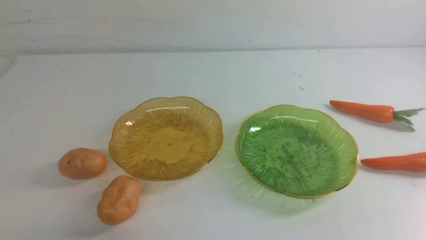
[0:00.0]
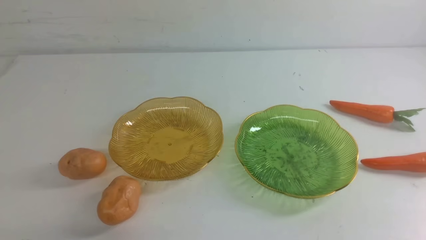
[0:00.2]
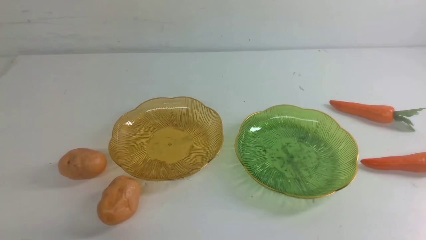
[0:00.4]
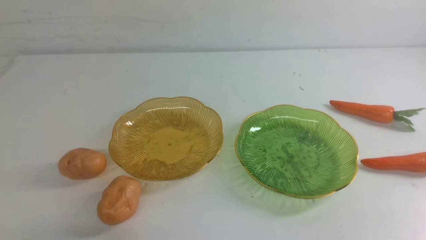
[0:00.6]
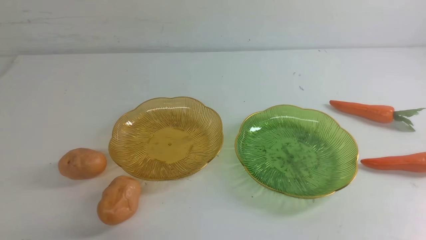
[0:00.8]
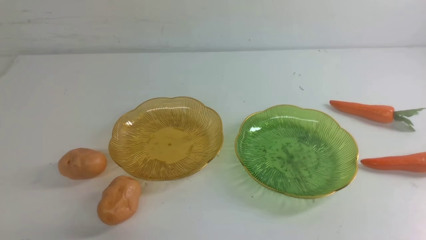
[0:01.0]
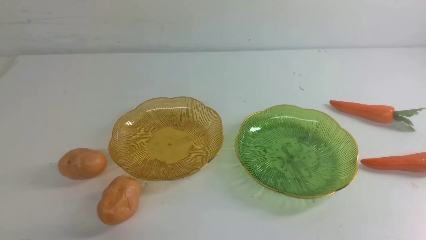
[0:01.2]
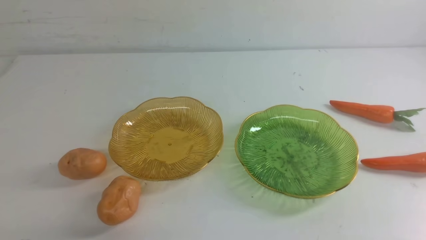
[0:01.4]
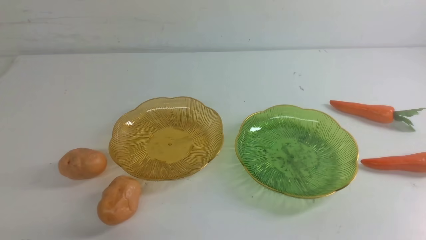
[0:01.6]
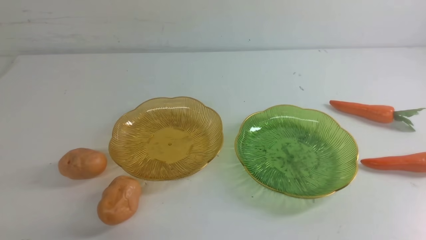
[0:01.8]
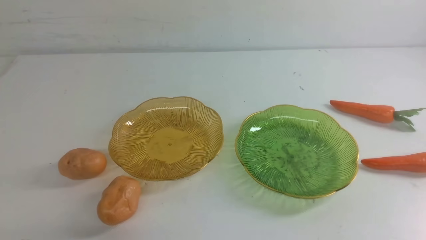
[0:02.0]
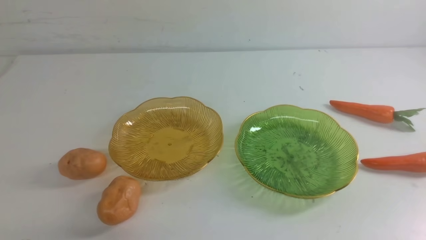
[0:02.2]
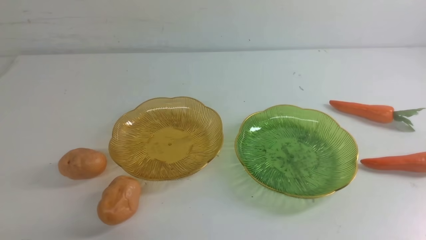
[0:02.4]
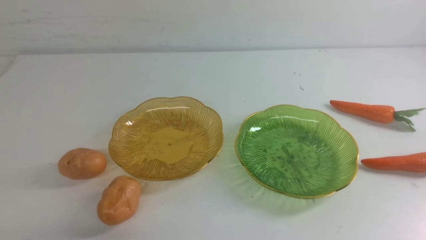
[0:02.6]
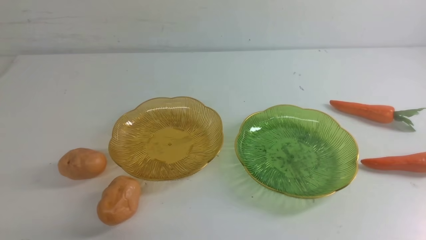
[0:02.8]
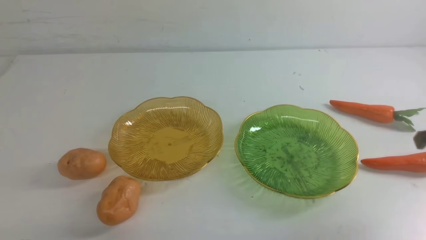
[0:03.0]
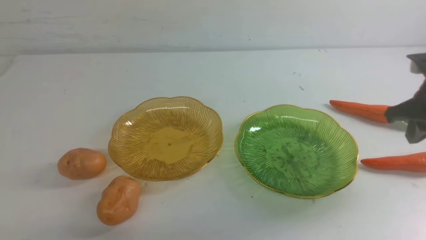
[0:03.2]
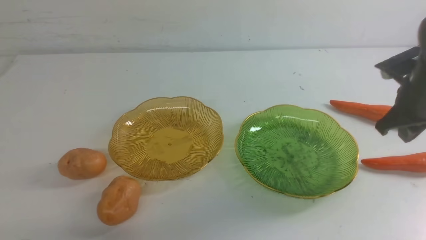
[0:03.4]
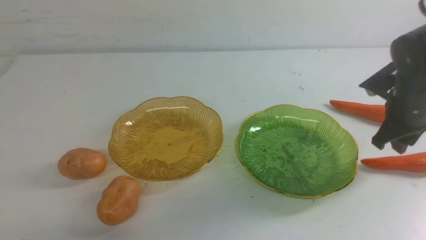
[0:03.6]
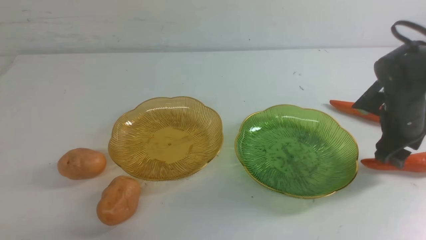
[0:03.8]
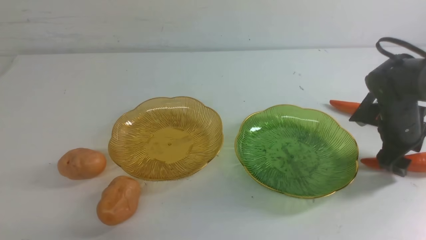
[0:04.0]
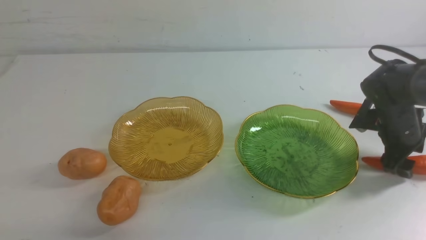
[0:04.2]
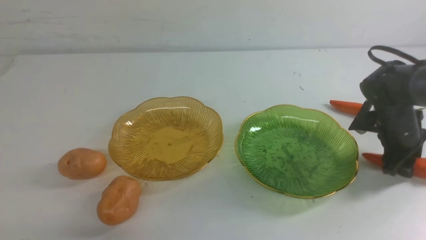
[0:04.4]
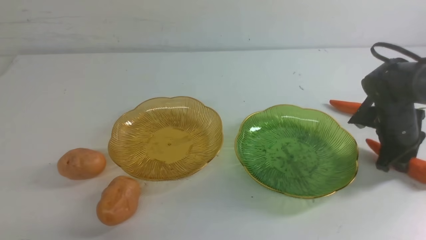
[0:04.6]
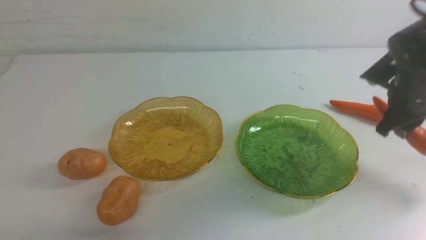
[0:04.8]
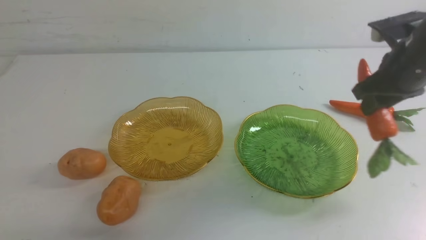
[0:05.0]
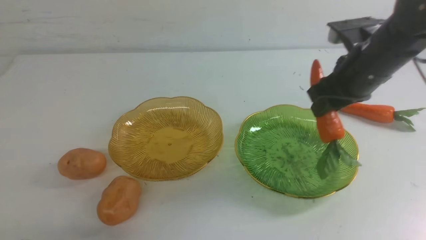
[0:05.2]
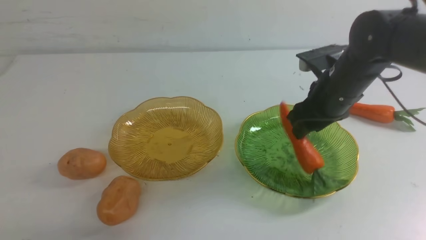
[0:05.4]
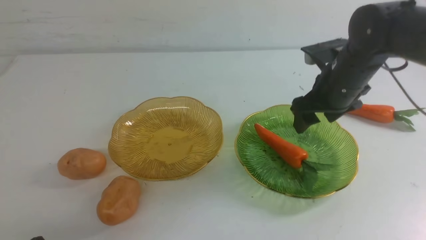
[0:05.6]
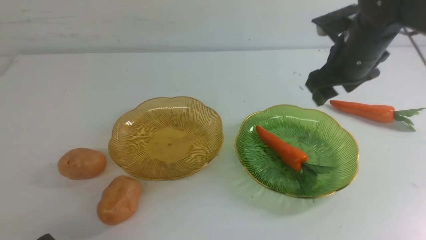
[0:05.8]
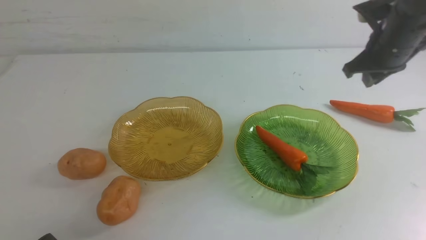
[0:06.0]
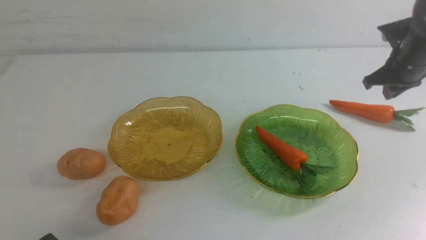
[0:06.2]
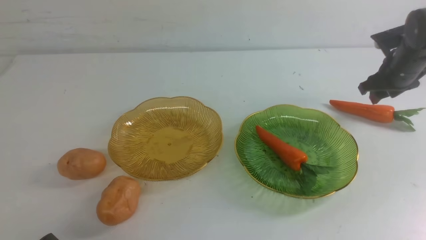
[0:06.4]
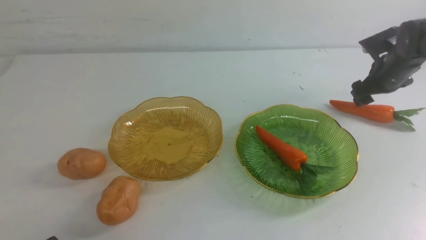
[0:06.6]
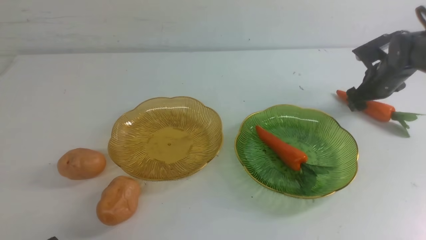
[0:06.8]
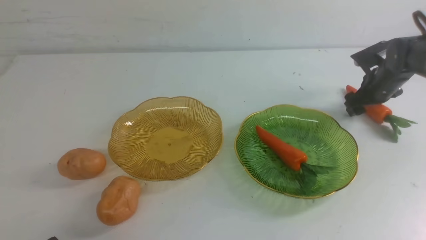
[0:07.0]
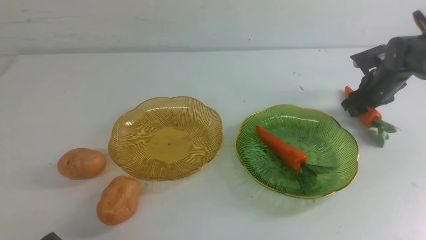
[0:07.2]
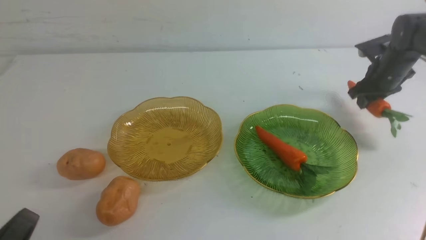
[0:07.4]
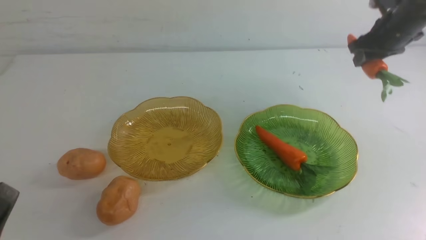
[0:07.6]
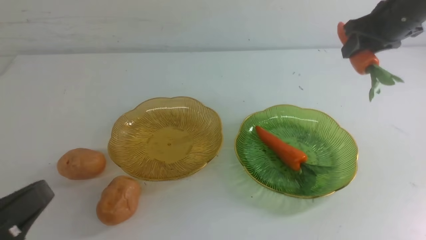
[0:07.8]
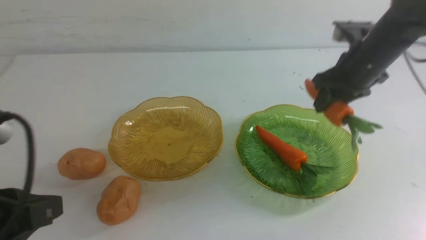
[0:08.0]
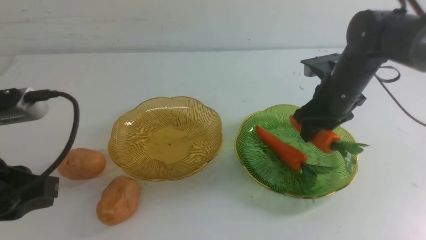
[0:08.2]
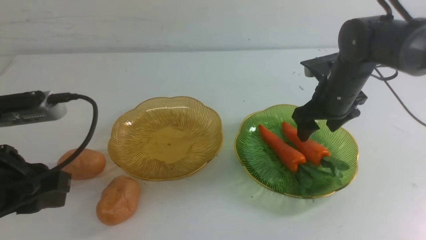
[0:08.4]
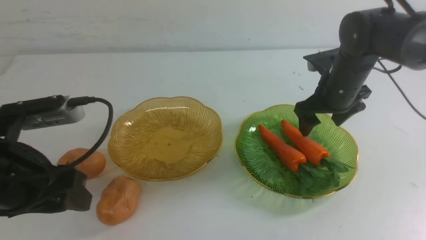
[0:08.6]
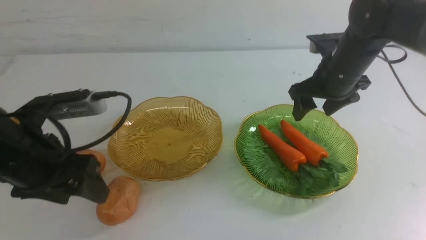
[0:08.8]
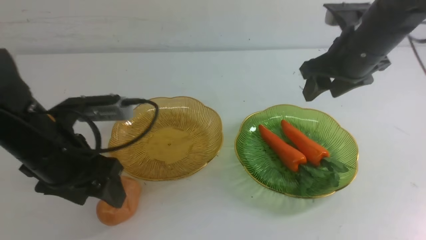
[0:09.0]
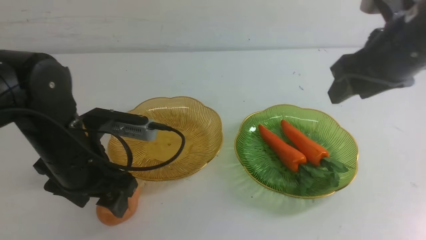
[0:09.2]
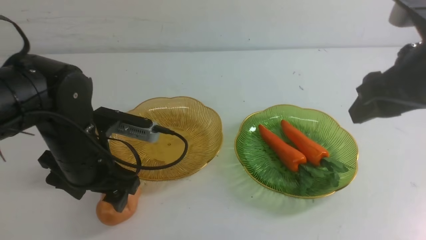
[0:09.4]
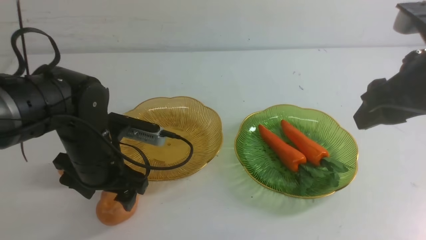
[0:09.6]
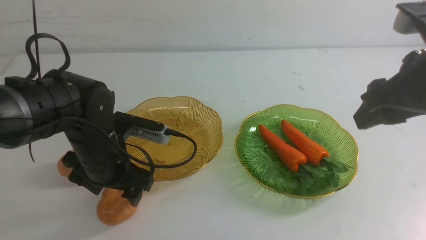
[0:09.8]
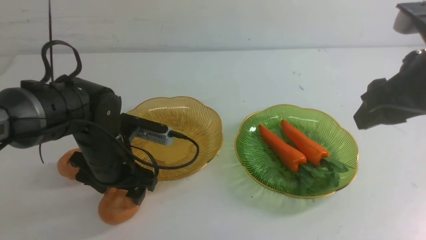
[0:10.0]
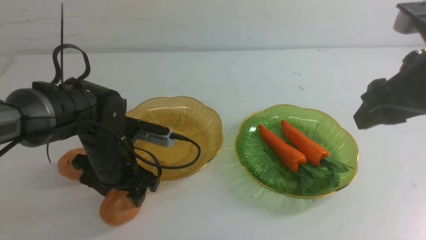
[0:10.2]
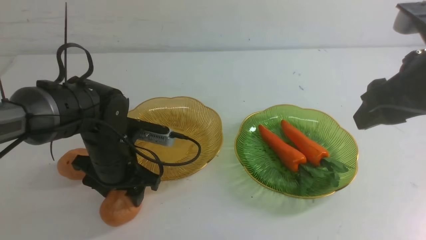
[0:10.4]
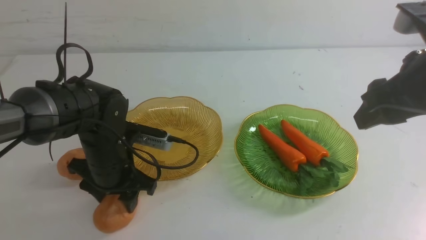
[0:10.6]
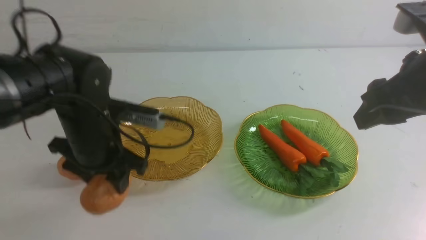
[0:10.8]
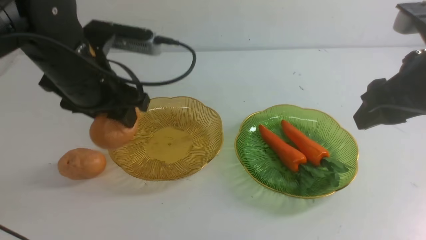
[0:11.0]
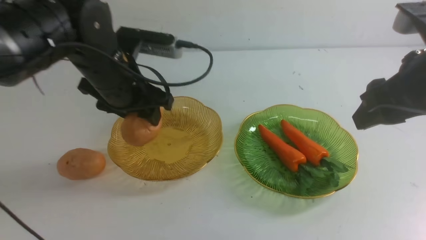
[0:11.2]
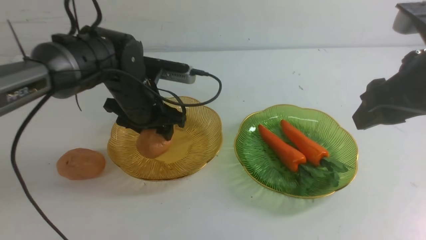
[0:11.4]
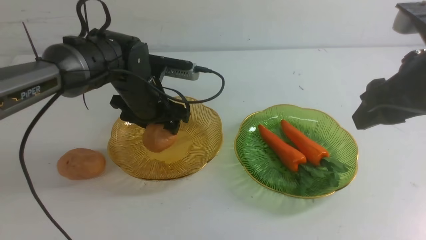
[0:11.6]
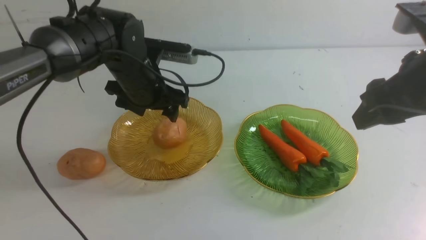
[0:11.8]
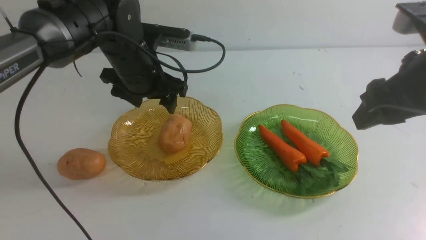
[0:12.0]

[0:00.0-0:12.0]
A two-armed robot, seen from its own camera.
Step, 0.0 to 8.4 s: use the right arm to grab a carrot and put it into the right plate.
3.0 to 4.4 s: The right gripper shifts approximately 15 cm downward and forward, and opens up.
4.4 to 6.0 s: The right gripper is displaced upward and to the left by approximately 15 cm.
6.0 to 7.6 s: The left gripper is displaced upward by approximately 5 cm; the right gripper travels forward, to the right and downward by some 10 cm, and opens, then closes once more.
7.6 to 9.0 s: The right gripper goes some 20 cm to the left, backward and upward; the left gripper shifts approximately 15 cm forward, and opens its fingers.
9.0 to 10.4 s: The right gripper goes roughly 15 cm backward and upward. Meanwhile the left gripper goes about 15 cm downward, forward and to the right.
10.4 to 12.0 s: The left gripper goes up and down, about 10 cm each way, reversing 2 times.

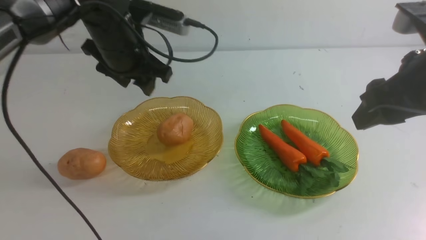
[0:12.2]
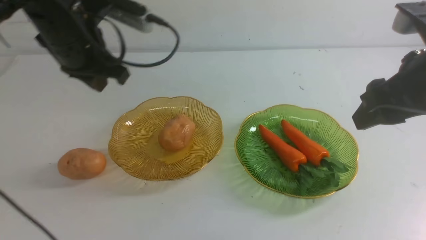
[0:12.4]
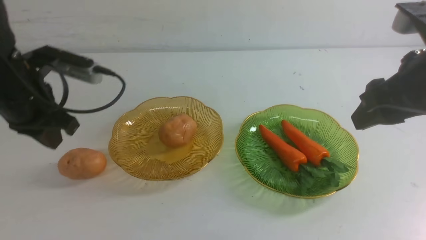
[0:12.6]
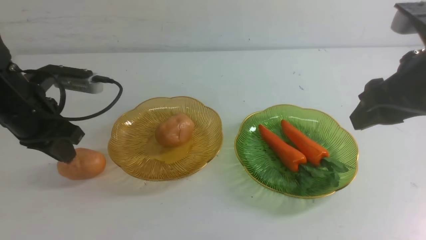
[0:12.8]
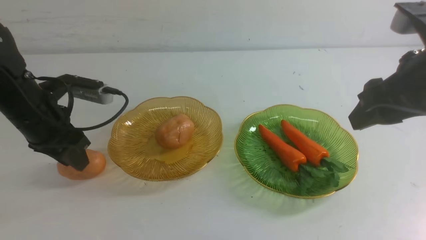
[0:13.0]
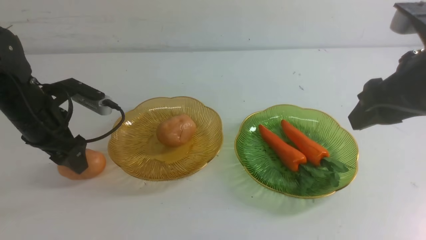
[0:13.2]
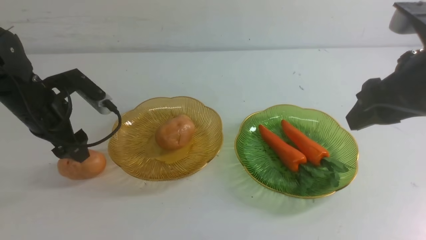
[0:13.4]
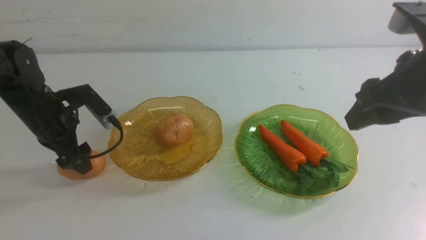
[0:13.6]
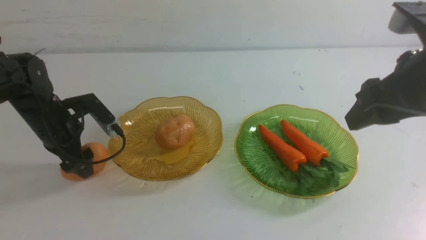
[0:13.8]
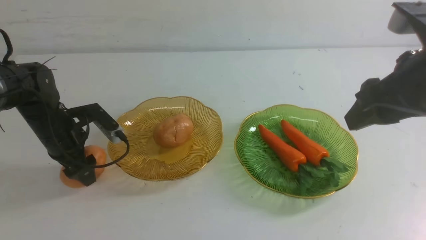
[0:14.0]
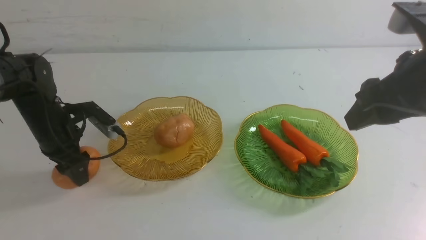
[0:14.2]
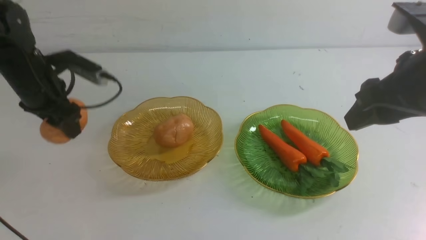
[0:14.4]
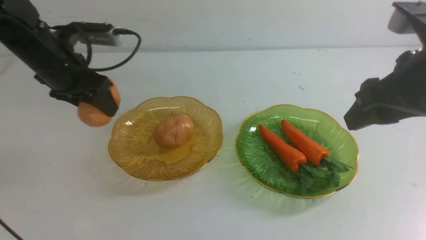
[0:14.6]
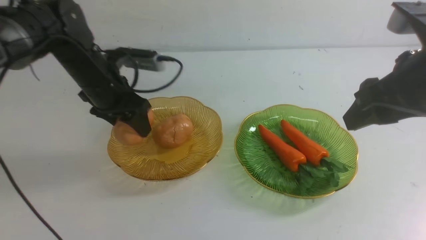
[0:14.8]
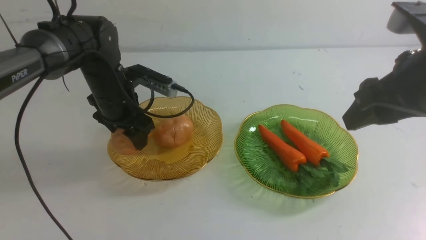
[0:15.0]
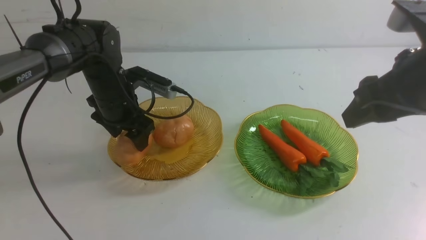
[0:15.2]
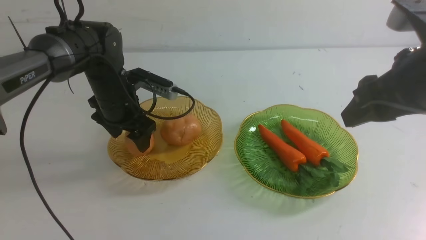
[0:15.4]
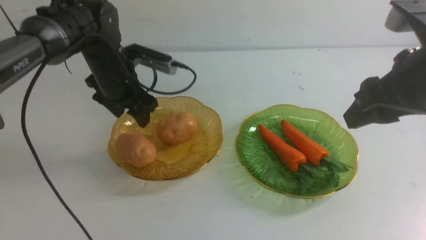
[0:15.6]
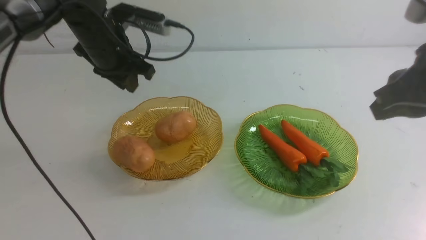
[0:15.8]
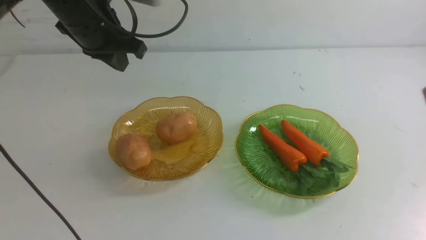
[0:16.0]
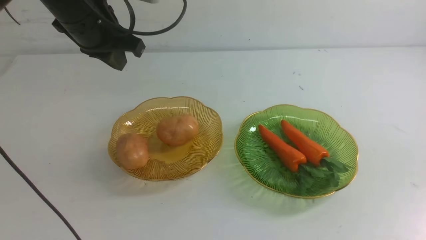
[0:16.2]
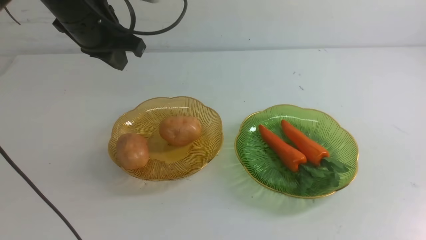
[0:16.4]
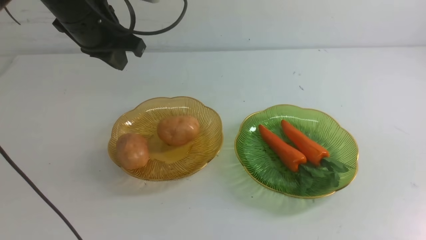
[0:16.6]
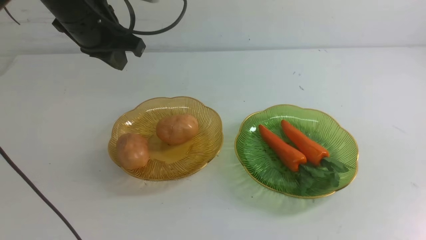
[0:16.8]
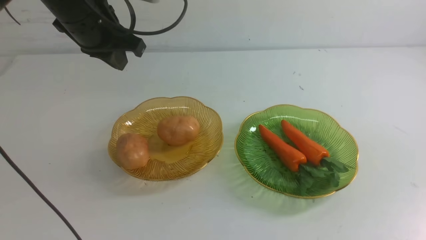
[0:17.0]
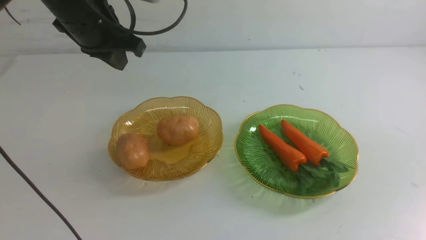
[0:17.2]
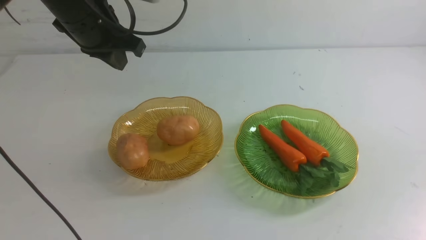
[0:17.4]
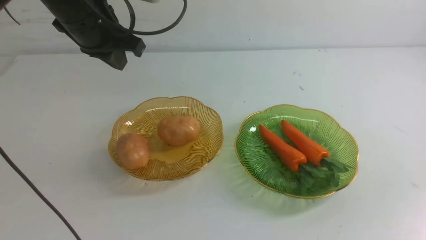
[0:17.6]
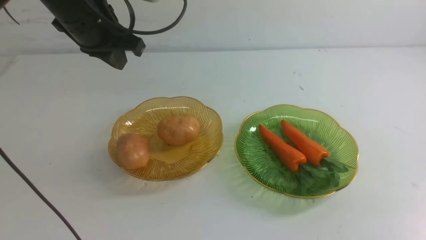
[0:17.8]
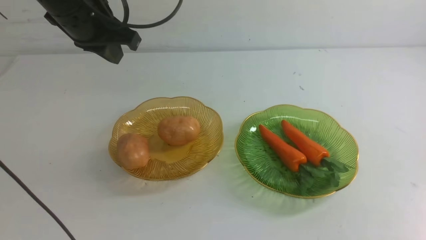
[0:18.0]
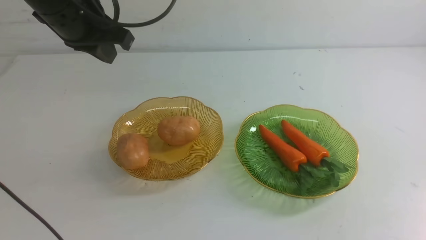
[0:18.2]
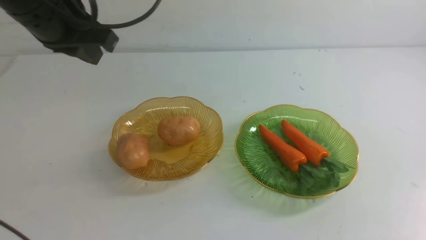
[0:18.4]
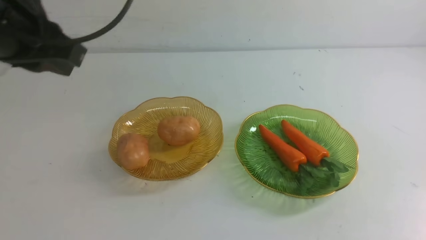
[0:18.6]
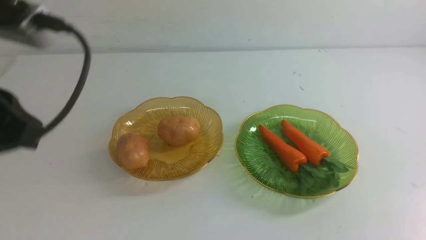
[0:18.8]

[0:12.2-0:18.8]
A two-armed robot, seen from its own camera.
Step, 12.2 to 15.4 s: Grab a potato with your left arm and put it on the left plate.
12.2 to 13.8 s: The left gripper shifts about 20 cm to the left and downward, and closes, then reopens.
13.8 to 15.4 s: The left gripper goes some 10 cm to the right.
15.4 to 17.2 s: The left gripper travels upward by roughly 15 cm, and closes its fingers. The right gripper is displaced backward by roughly 15 cm, and closes up.
17.2 to 18.8 s: The left gripper shifts some 20 cm backward.
